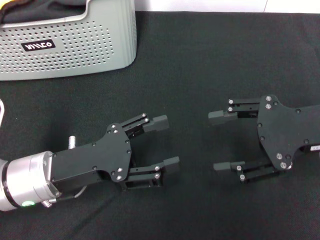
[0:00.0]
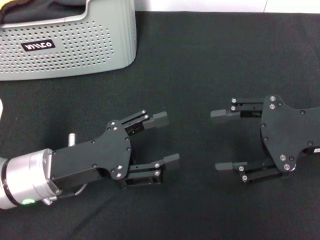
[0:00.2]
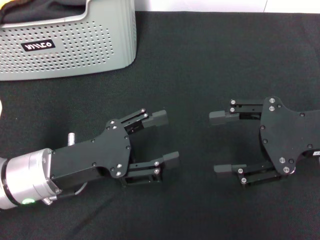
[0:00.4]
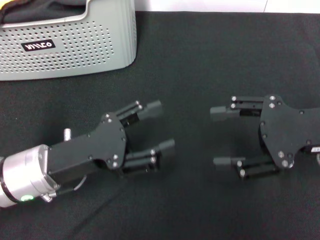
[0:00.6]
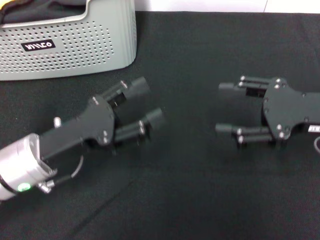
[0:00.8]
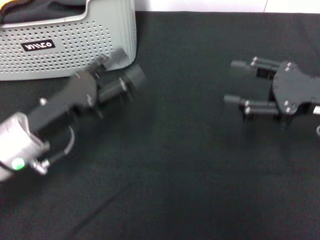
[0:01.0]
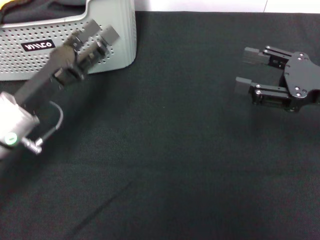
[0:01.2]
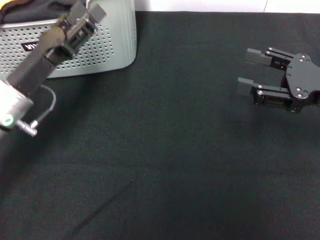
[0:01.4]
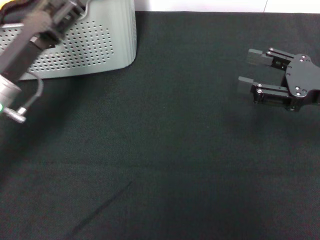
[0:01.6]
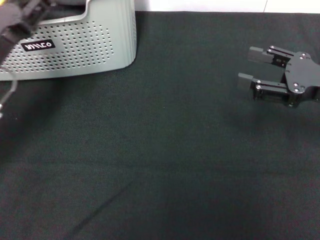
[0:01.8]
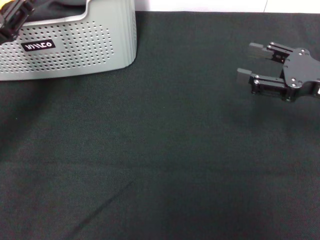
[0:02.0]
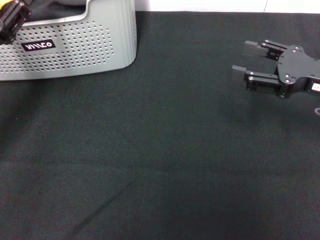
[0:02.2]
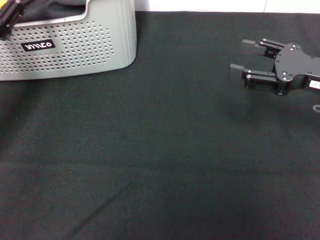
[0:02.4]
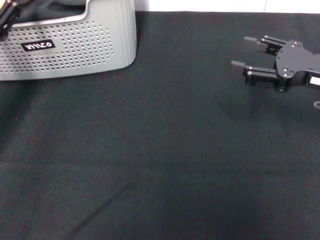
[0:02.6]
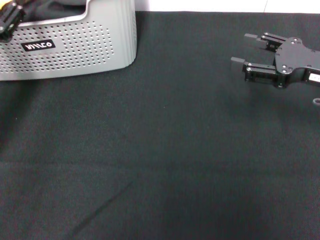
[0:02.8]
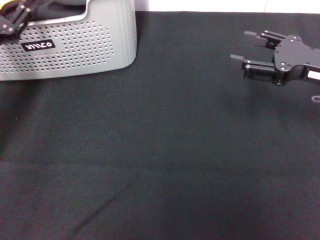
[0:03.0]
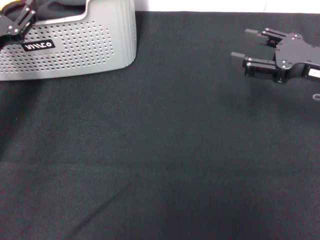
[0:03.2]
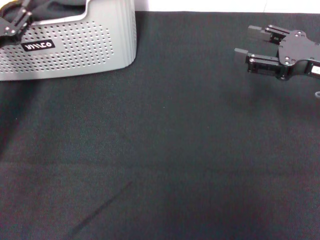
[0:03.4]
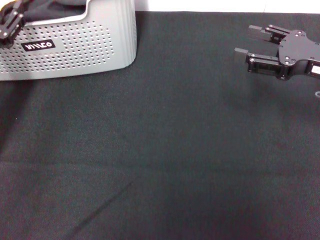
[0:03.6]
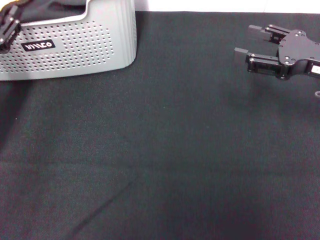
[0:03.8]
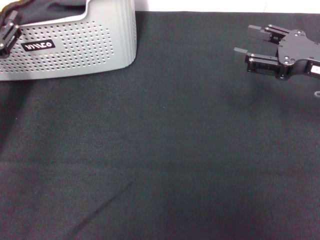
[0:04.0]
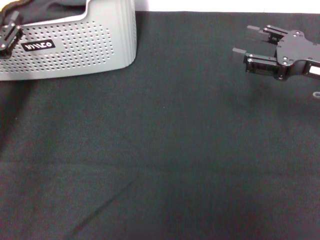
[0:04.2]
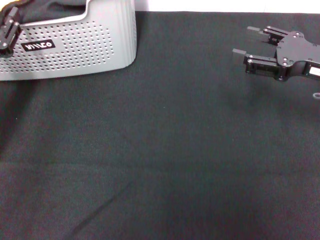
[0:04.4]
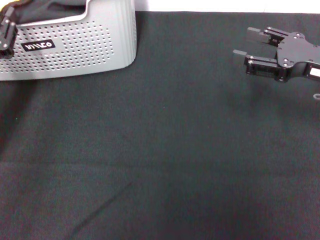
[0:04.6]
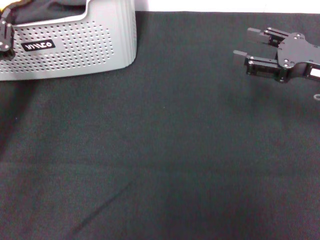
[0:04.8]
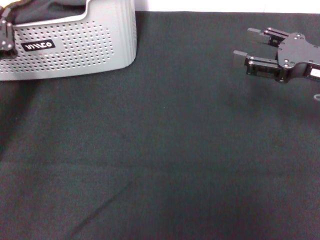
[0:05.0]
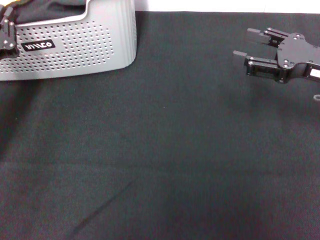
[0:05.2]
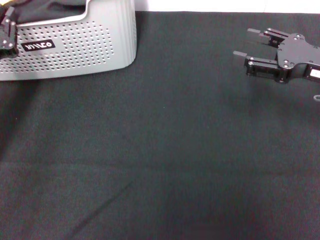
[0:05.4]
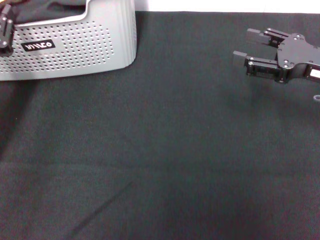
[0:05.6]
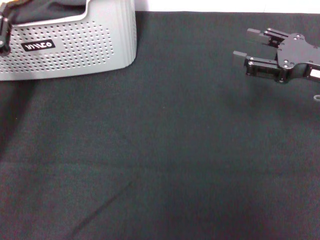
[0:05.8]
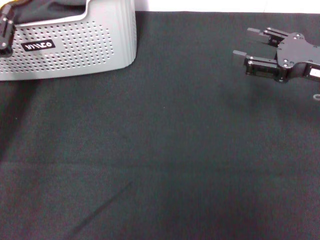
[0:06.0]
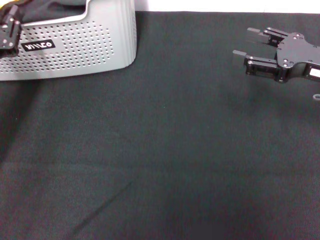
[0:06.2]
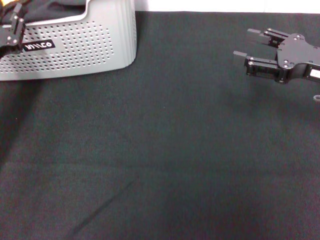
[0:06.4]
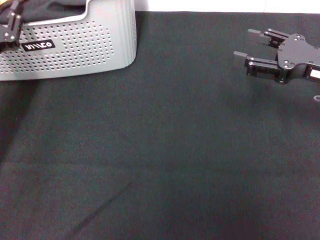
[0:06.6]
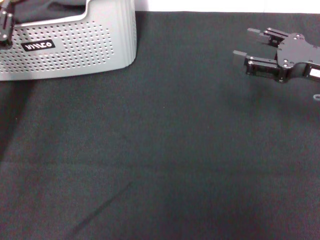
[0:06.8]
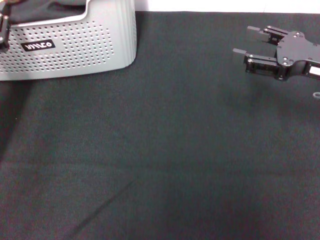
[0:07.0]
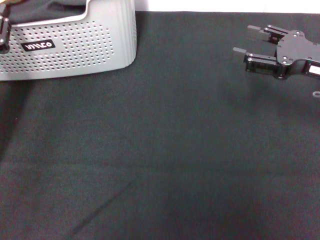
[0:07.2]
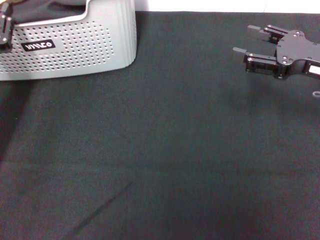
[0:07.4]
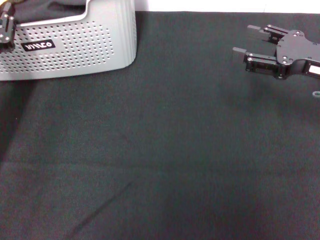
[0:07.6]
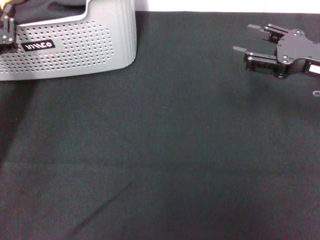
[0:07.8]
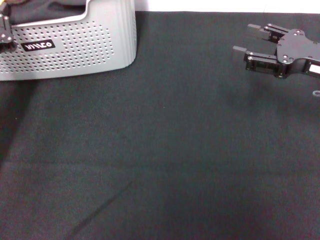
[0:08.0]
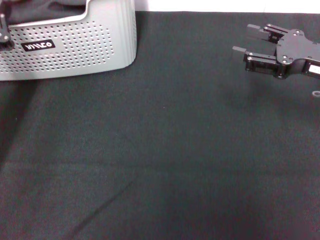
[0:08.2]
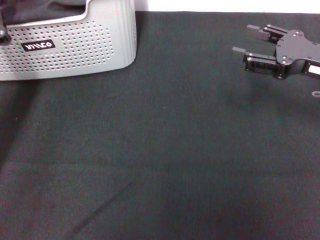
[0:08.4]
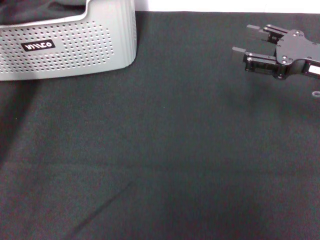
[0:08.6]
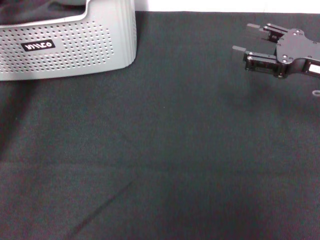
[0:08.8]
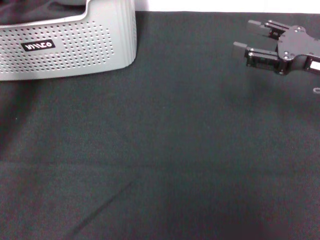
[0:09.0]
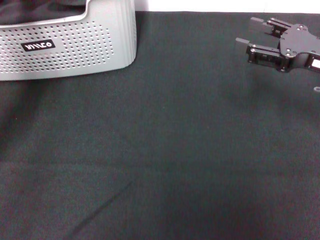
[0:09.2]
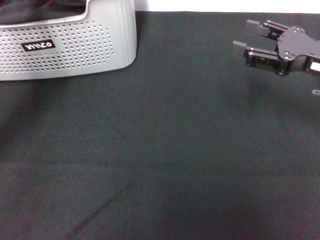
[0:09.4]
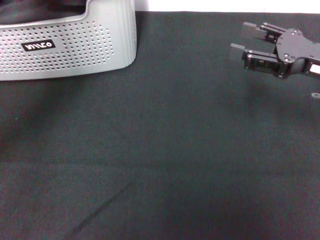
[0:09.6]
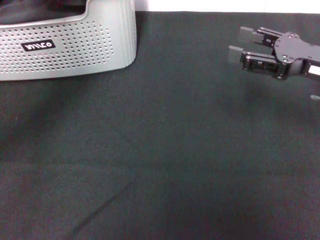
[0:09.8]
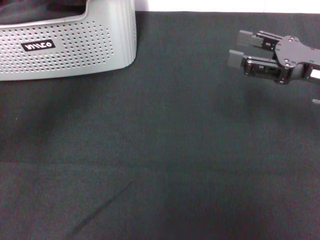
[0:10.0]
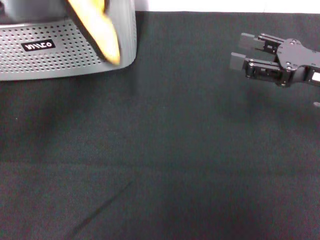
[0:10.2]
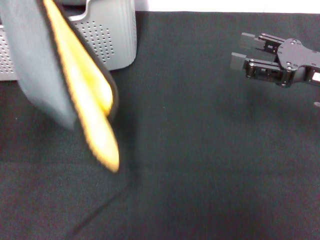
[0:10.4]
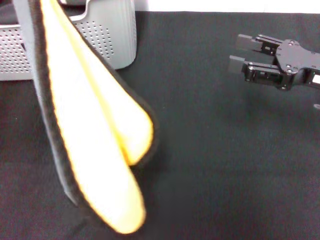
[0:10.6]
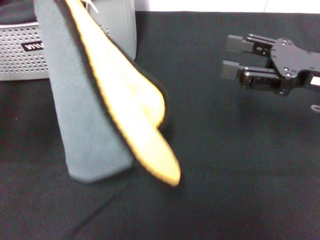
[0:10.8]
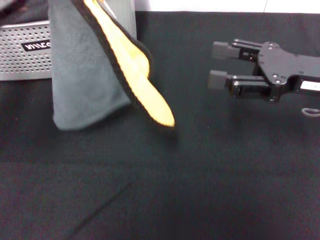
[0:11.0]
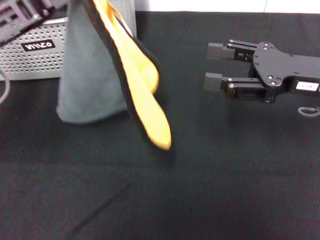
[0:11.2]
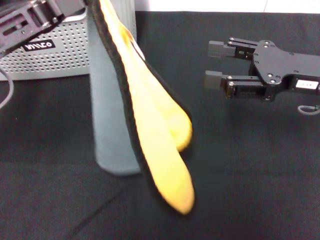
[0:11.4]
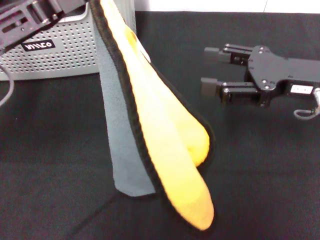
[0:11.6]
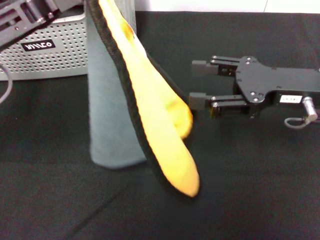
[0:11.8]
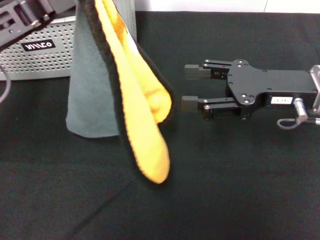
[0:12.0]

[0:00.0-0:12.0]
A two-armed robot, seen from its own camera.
Task of the whole recording: pick up the towel from the storage box and lay it flat on the black tablecloth.
Step, 0:00.0 to 0:07.8: Pick up a towel with the left gripper.
0:00.0 to 0:01.6: The right gripper shifts by about 5 cm. Meanwhile the left gripper travels forward and to the left by approximately 10 cm.
0:01.6 to 0:03.0: The left gripper goes roughly 5 cm to the left.
0:03.0 to 0:04.4: The grippers stay close to where they were, moving slightly.
0:04.4 to 0:06.0: The left gripper closes.
0:06.0 to 0:07.6: The grippers move only a little.
0:07.6 to 0:09.0: The left gripper shifts by about 5 cm, and closes.
0:09.0 to 0:10.4: The left gripper shifts about 10 cm upward.
0:10.4 to 0:12.0: The right gripper shifts roughly 5 cm to the left.

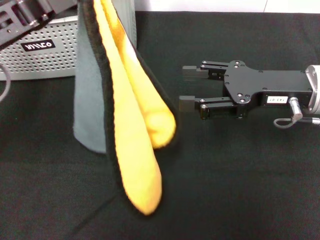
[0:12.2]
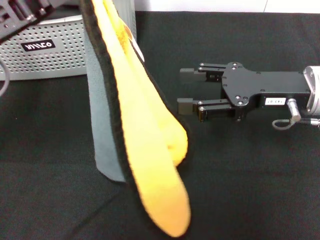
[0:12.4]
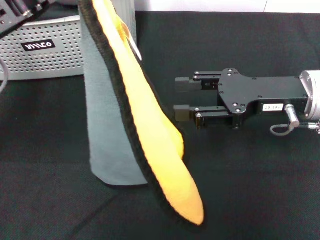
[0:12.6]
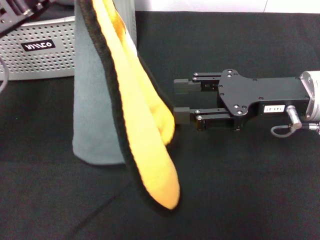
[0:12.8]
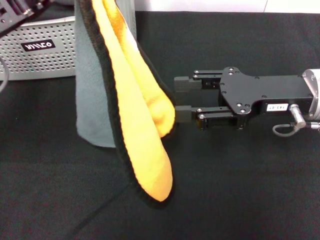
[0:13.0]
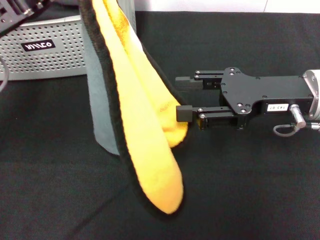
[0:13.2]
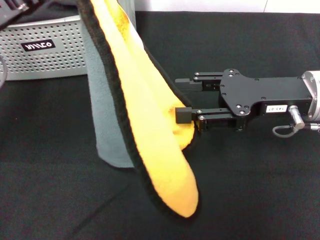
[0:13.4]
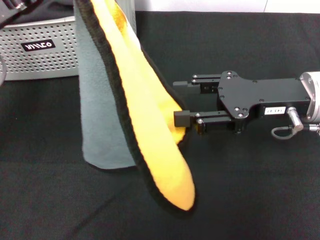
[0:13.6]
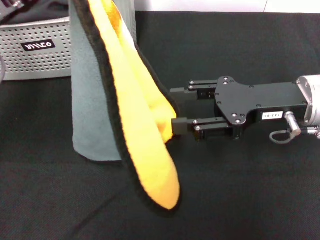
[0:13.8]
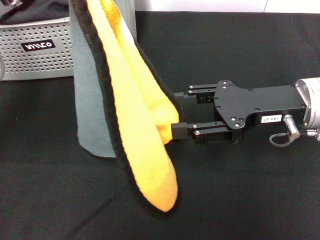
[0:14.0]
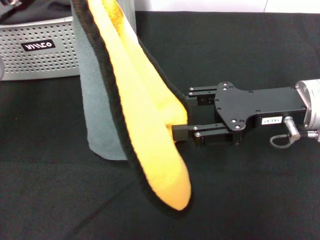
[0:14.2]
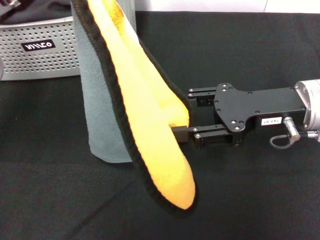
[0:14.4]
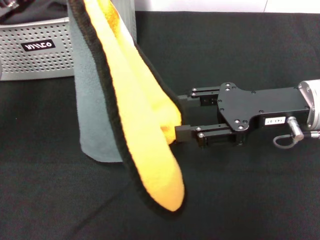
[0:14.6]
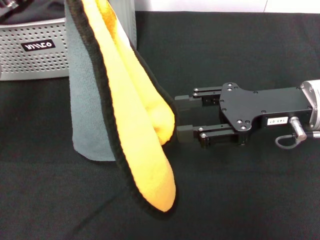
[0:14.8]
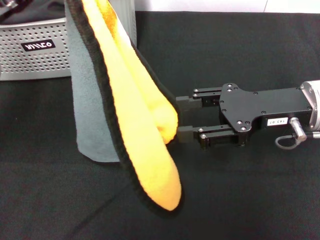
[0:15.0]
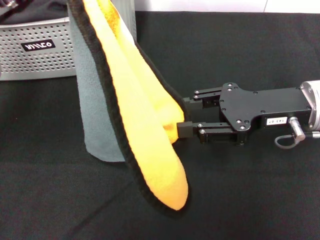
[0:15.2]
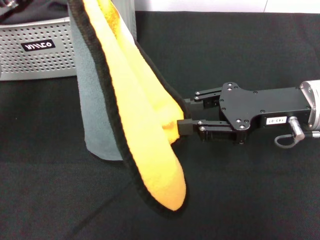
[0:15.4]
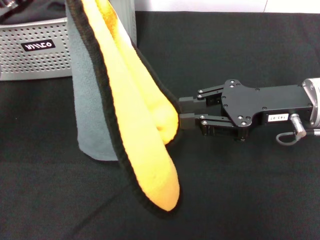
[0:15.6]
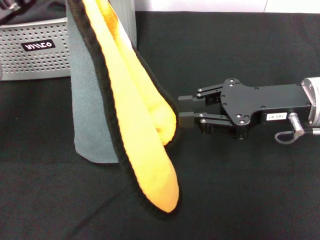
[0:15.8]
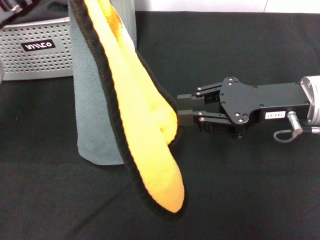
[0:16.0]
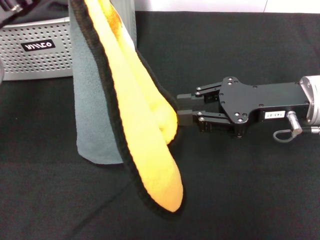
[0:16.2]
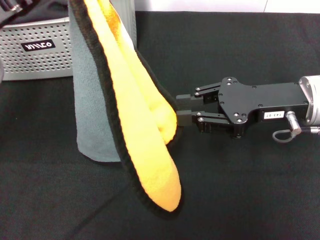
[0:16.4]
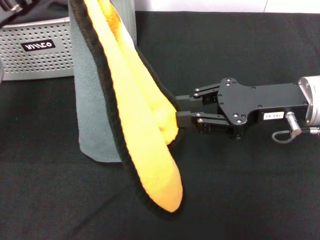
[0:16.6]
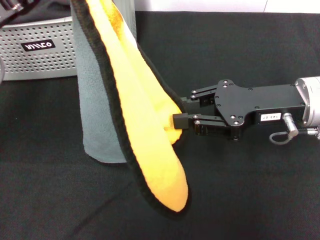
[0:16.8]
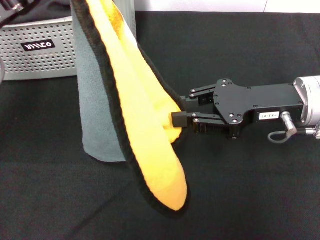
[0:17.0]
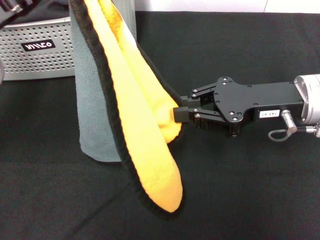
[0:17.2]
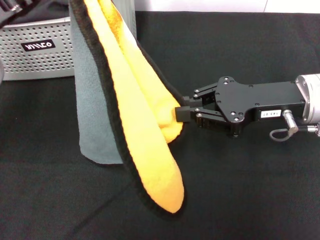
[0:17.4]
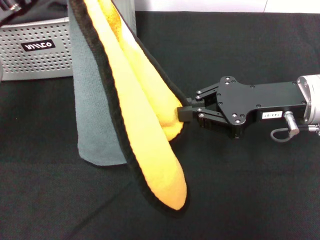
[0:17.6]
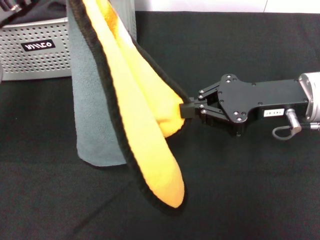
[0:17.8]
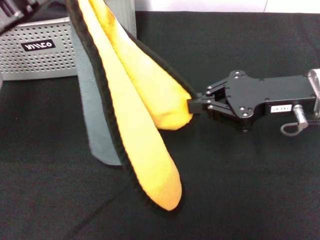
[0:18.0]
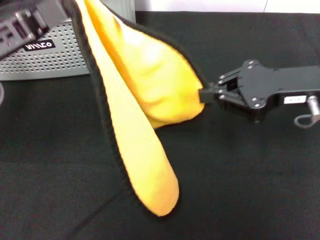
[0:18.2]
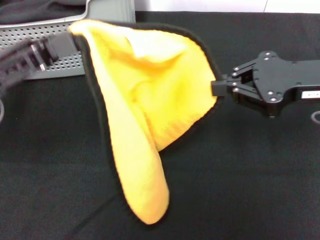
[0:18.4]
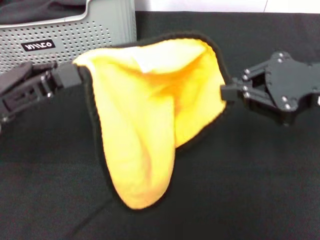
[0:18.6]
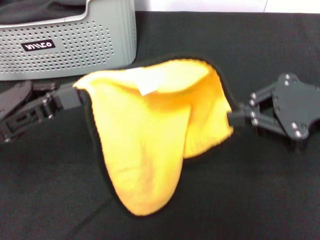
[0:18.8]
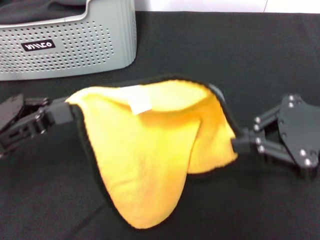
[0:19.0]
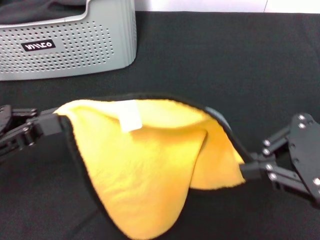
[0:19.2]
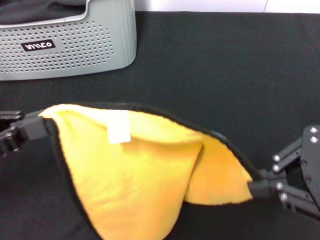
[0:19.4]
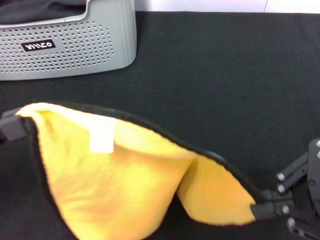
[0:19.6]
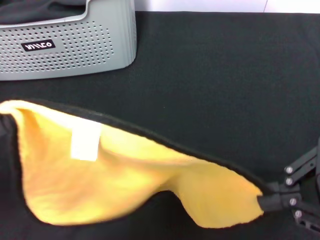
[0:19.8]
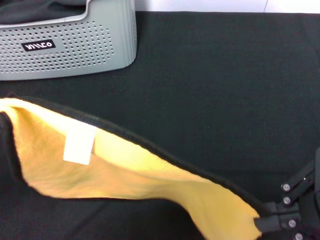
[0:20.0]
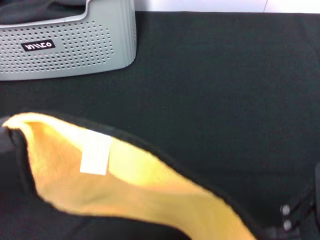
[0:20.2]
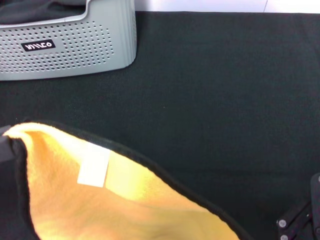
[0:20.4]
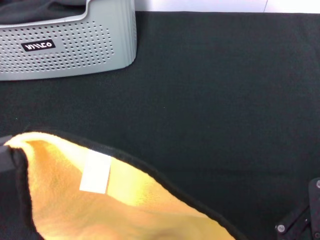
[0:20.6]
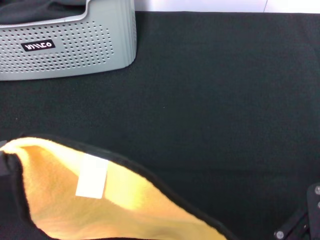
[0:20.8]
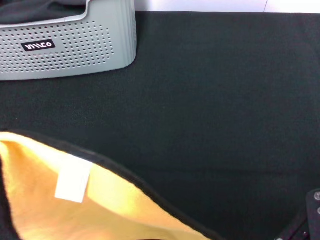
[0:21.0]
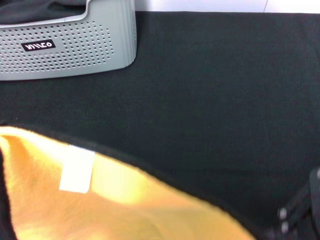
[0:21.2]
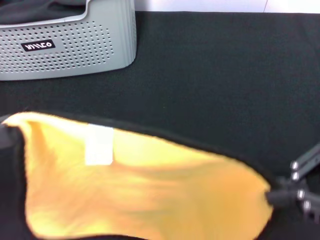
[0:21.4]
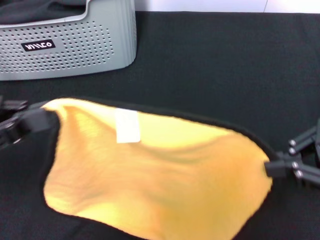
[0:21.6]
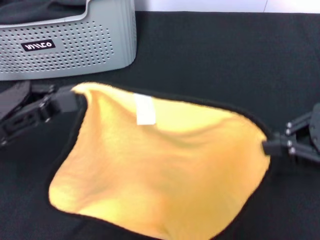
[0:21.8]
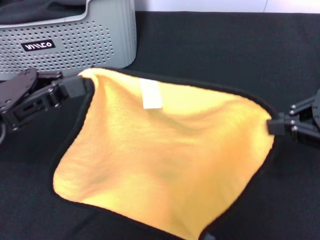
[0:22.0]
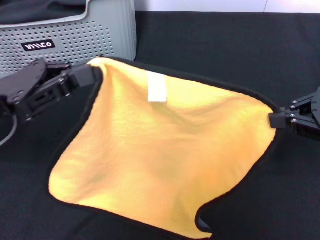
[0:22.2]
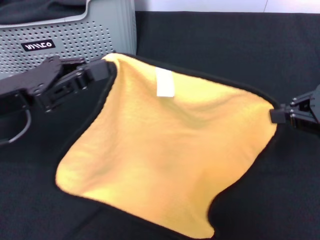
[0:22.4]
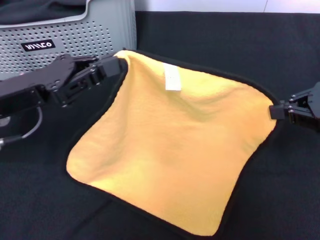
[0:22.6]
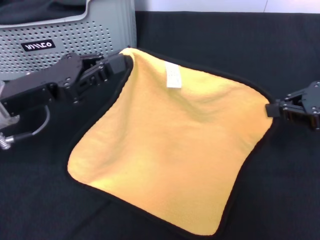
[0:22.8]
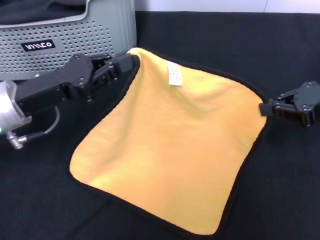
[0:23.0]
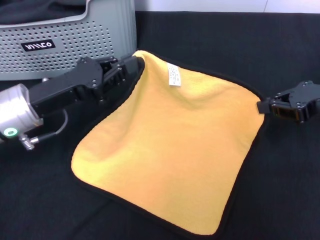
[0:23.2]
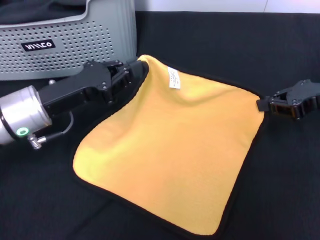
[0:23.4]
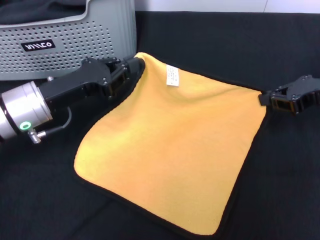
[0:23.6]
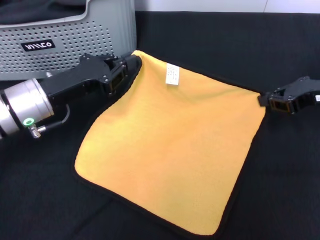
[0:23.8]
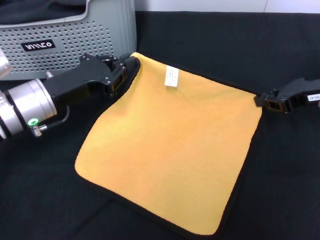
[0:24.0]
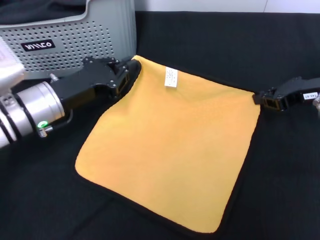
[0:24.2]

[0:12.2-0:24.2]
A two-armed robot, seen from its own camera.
Task of the whole recording: pick up the towel from the storage box and lay it flat on the black tablecloth.
Step, 0:12.2 to 0:17.8: Spread the towel flat with the left gripper.
0:12.2 to 0:13.8: The grippers move only a little.
0:13.8 to 0:16.6: Both grippers stay put.
0:18.2 to 0:19.8: The right gripper goes about 15 cm backward and upward. The left gripper moves backward and to the left, approximately 10 cm.
0:21.2 to 0:22.6: The right gripper moves forward, downward and to the right, roughly 15 cm, while the left gripper goes some 15 cm forward, to the right and downward.
0:22.6 to 0:24.2: The left gripper is displaced downward by some 5 cm, while the right gripper is displaced forward and downward by about 10 cm.
